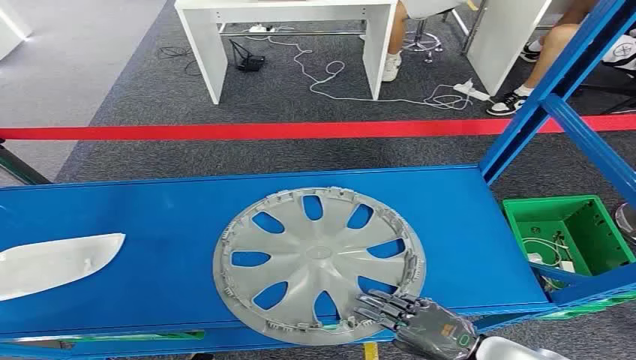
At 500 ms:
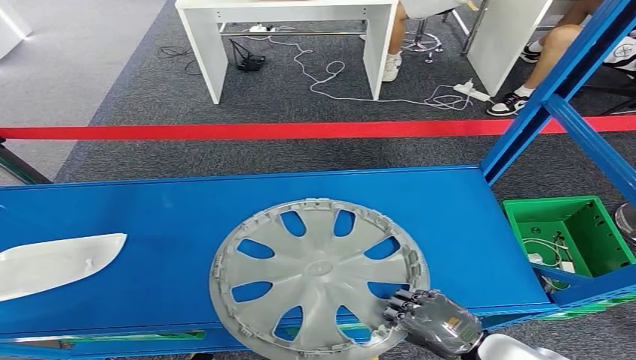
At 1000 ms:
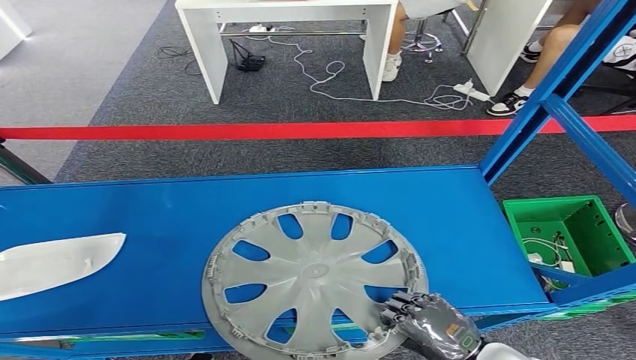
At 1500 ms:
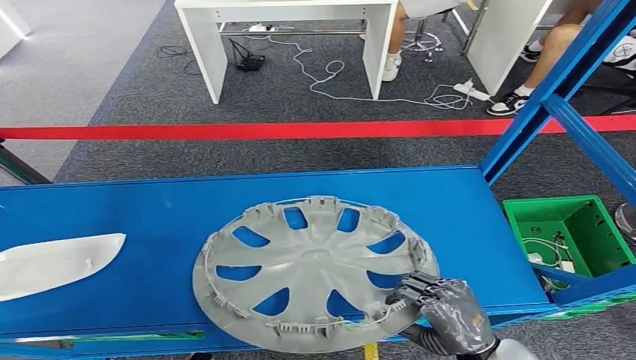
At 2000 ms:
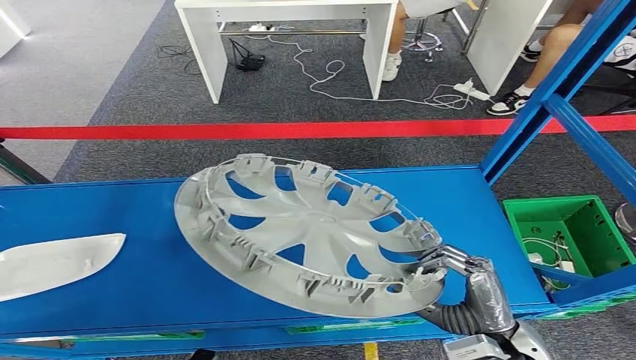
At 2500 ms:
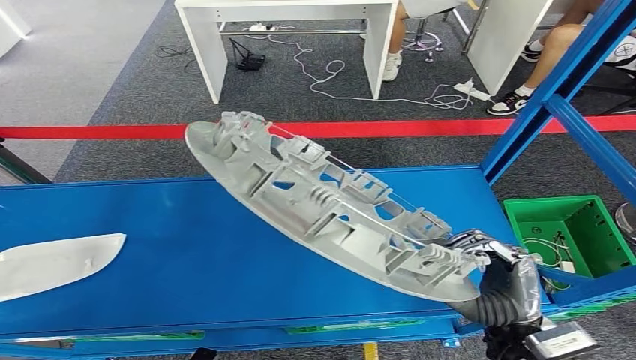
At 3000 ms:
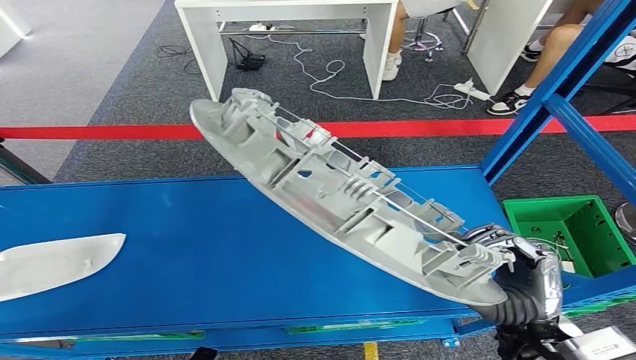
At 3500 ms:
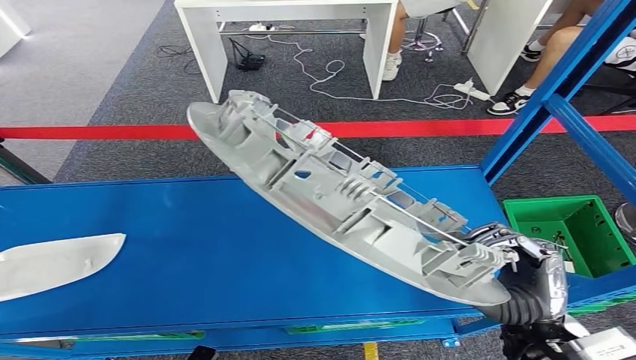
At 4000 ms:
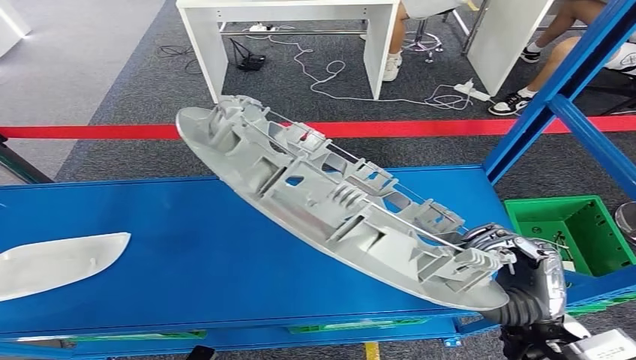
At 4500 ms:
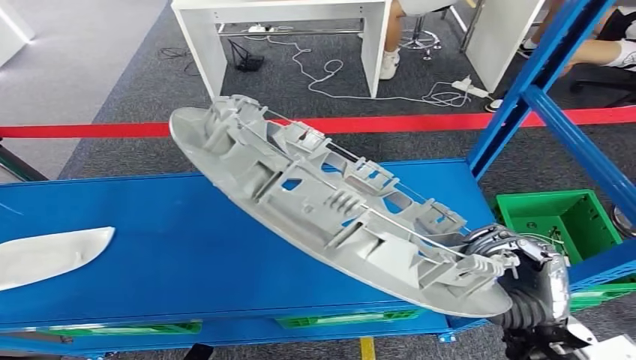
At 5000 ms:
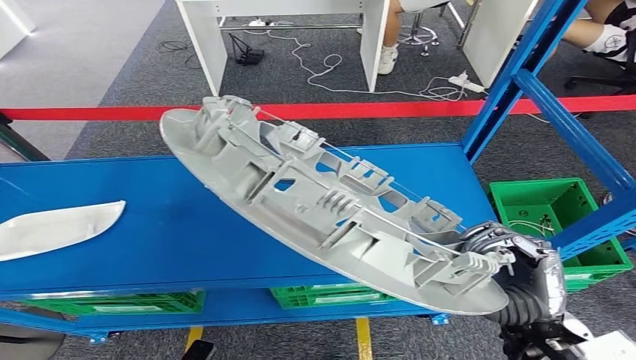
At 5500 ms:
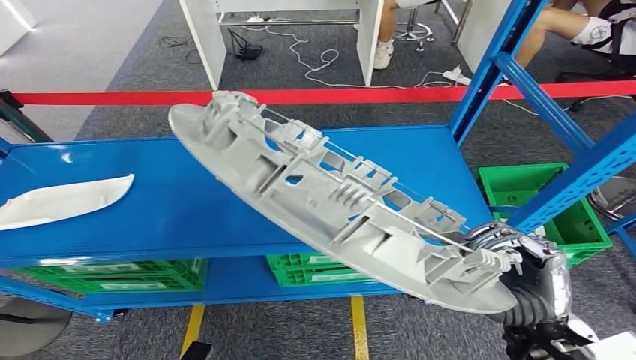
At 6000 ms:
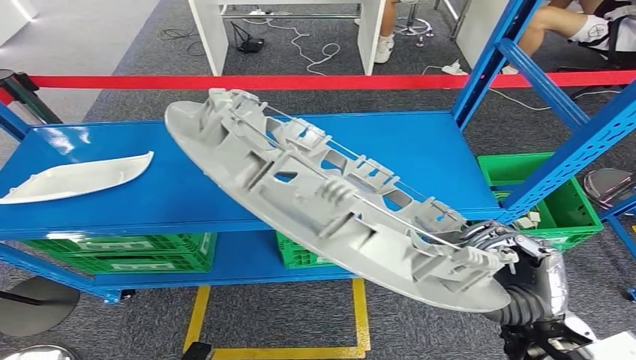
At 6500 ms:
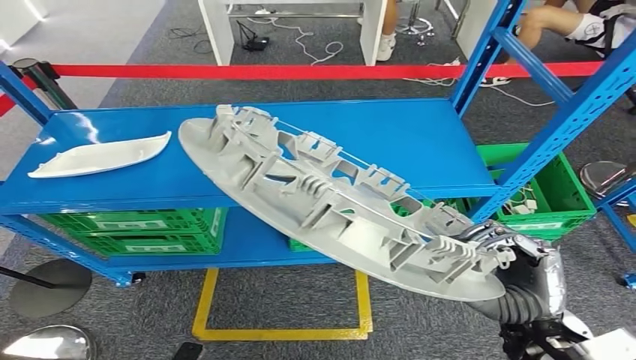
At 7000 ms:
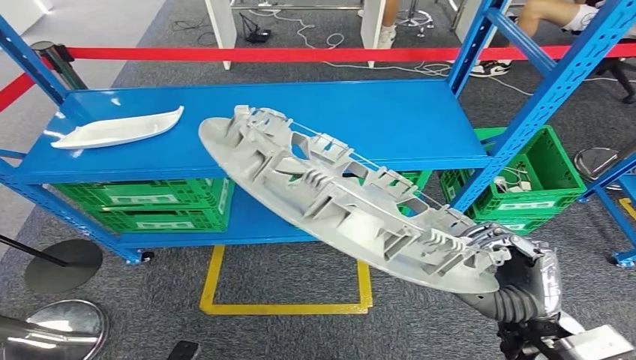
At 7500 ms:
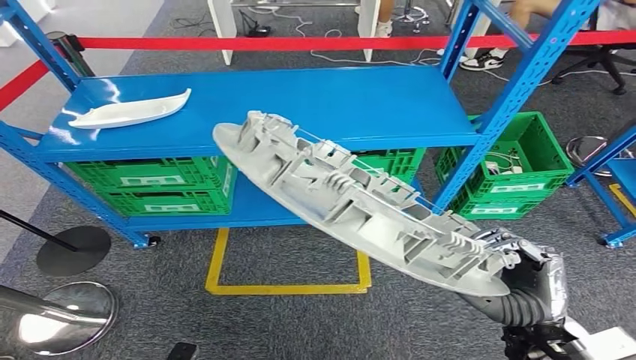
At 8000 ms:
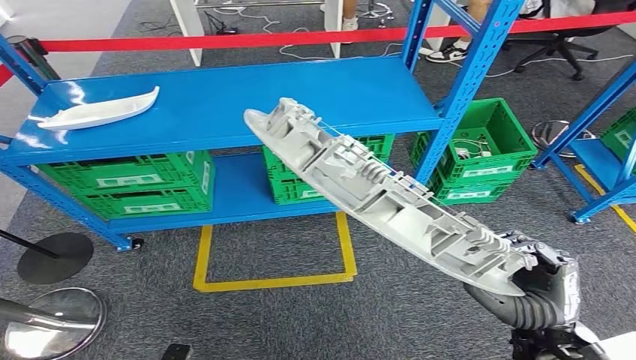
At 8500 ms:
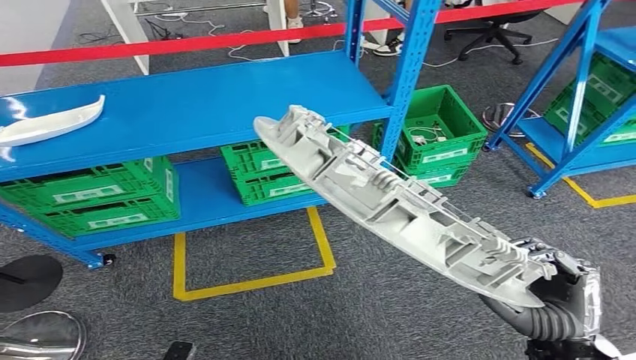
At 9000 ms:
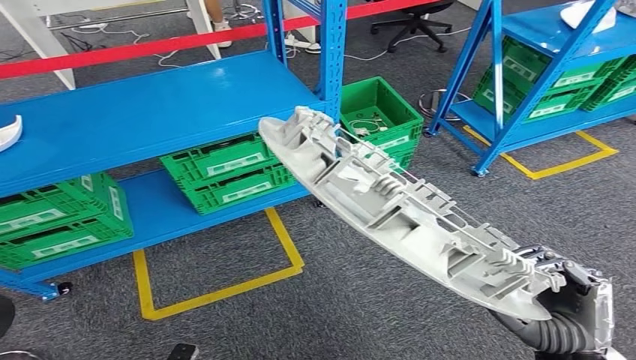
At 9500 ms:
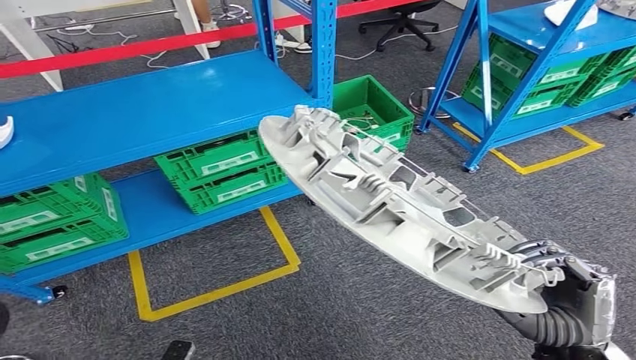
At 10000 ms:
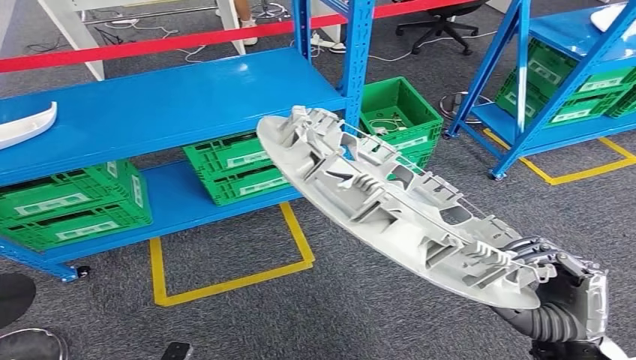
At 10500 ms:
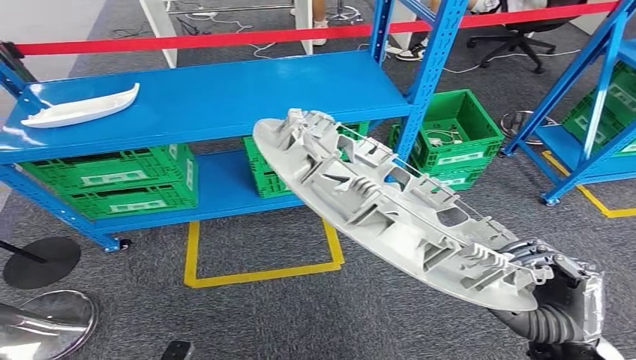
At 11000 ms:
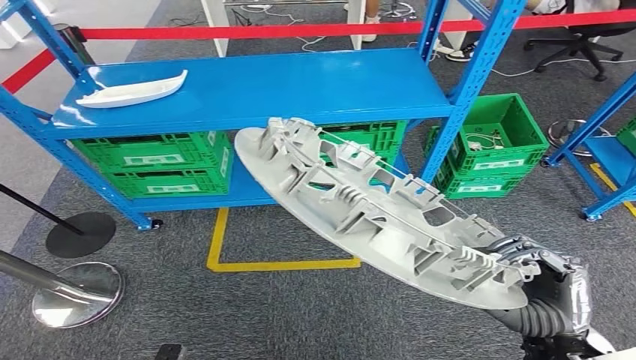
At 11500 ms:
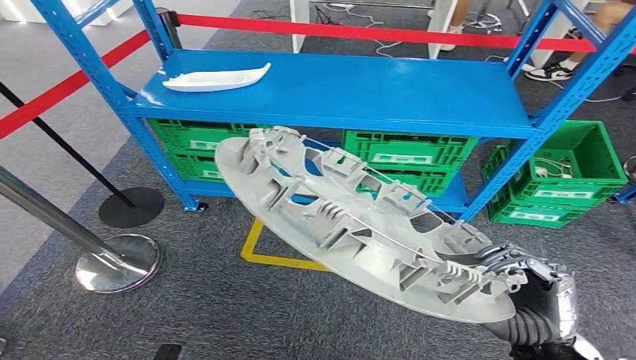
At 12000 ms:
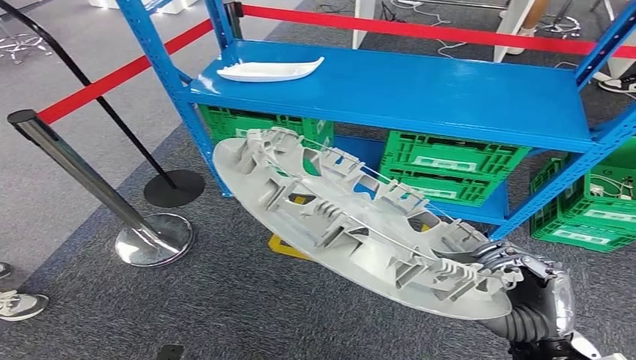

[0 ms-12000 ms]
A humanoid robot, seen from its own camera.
Step, 0 ms to 3500 ms: Pick up the small component from the shelf.

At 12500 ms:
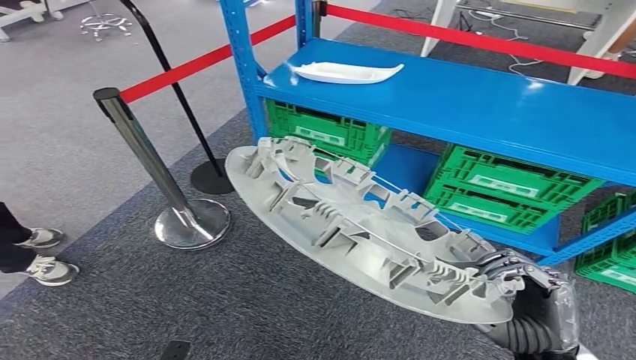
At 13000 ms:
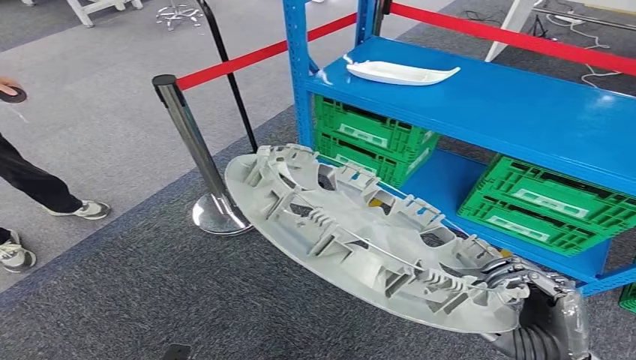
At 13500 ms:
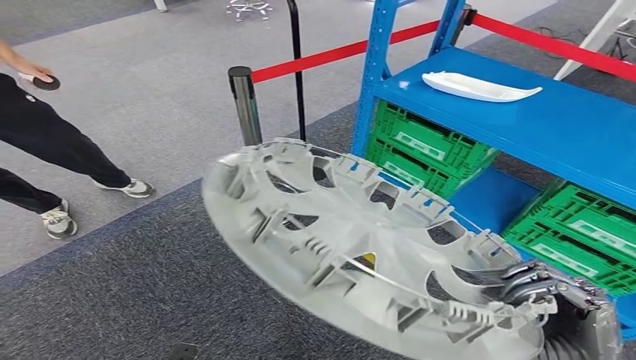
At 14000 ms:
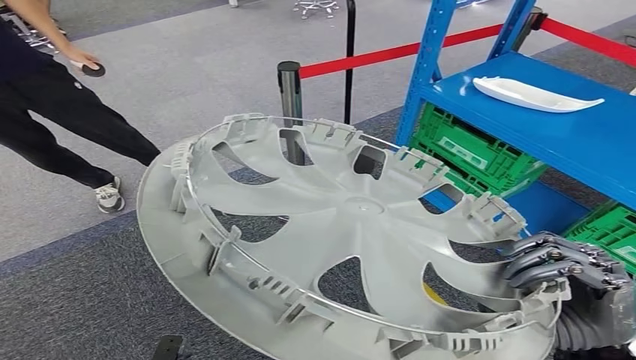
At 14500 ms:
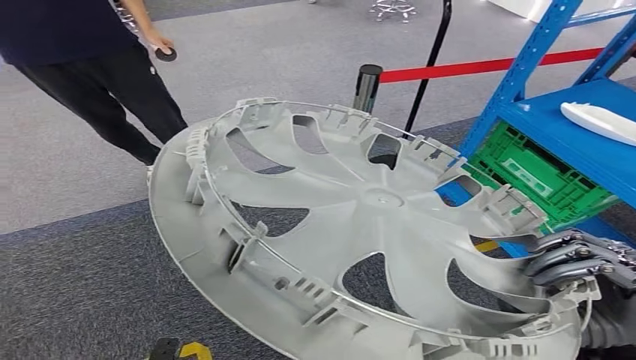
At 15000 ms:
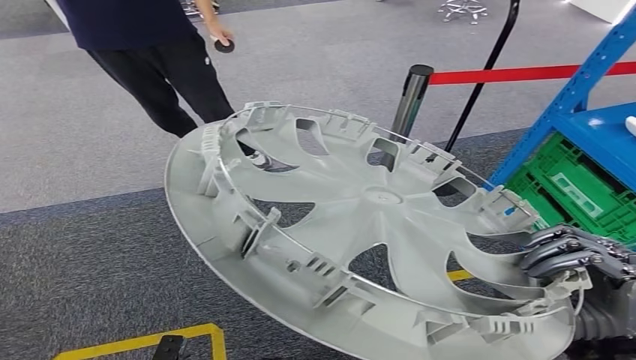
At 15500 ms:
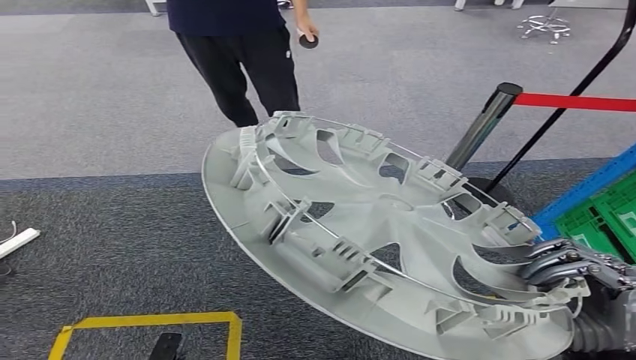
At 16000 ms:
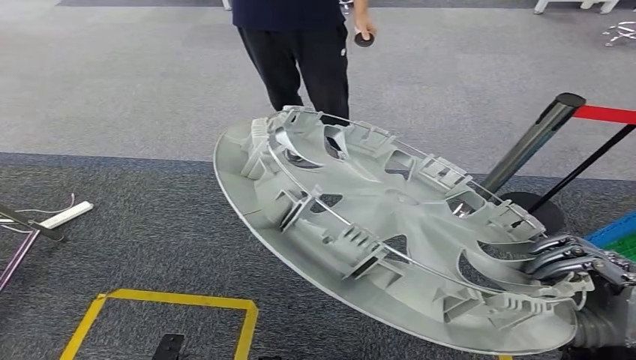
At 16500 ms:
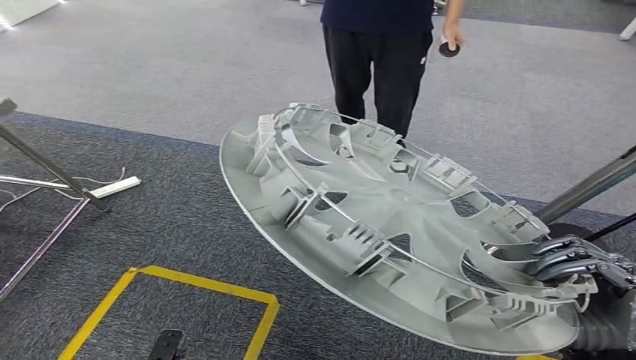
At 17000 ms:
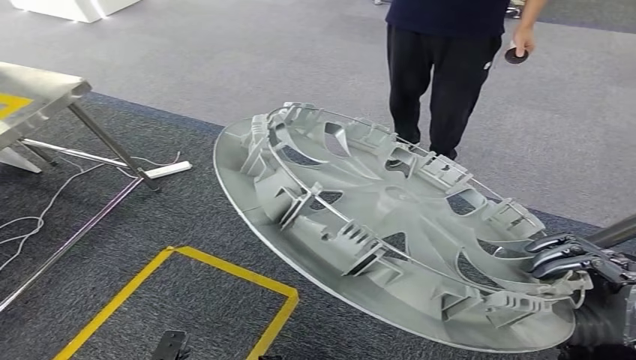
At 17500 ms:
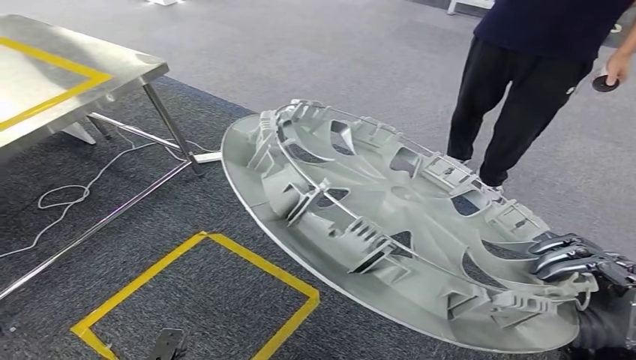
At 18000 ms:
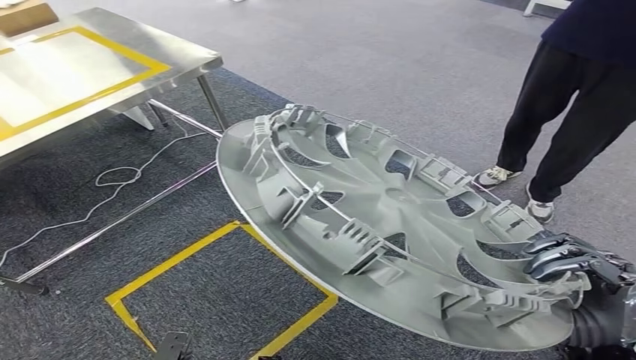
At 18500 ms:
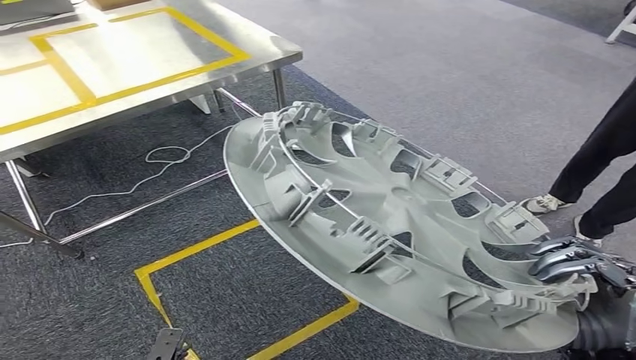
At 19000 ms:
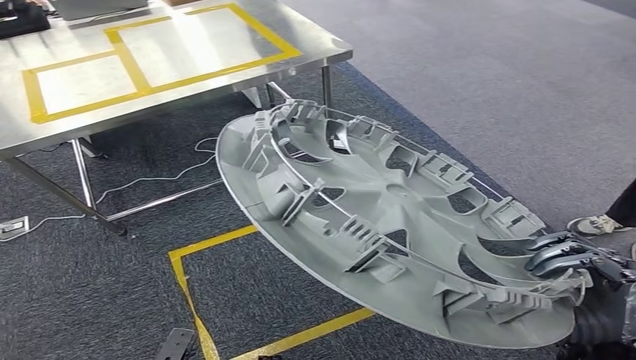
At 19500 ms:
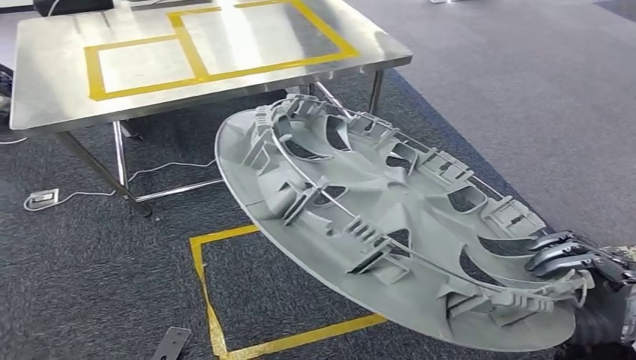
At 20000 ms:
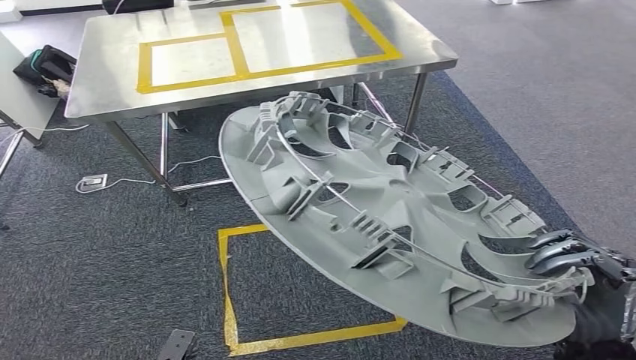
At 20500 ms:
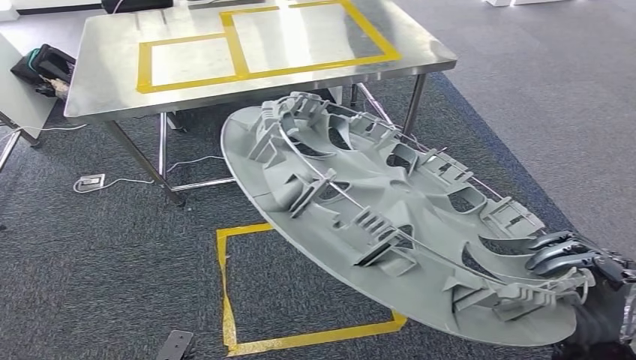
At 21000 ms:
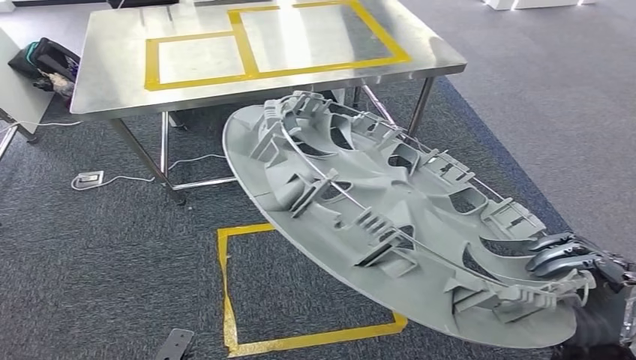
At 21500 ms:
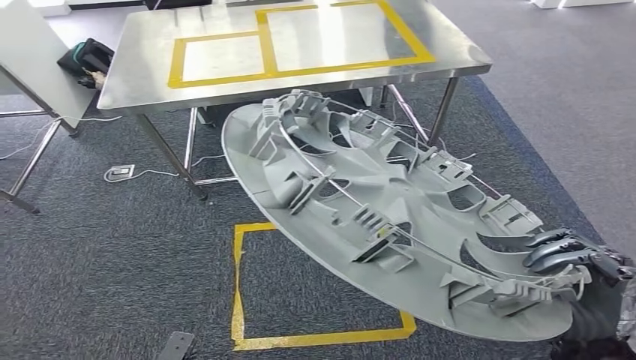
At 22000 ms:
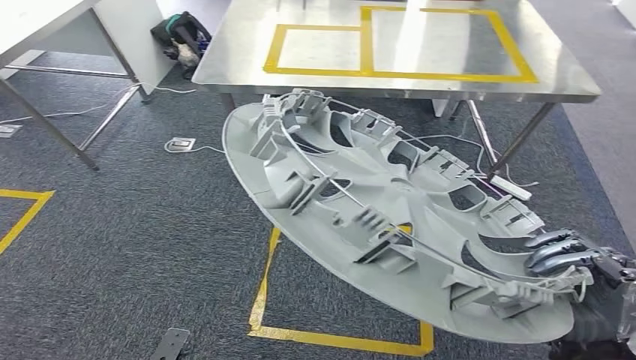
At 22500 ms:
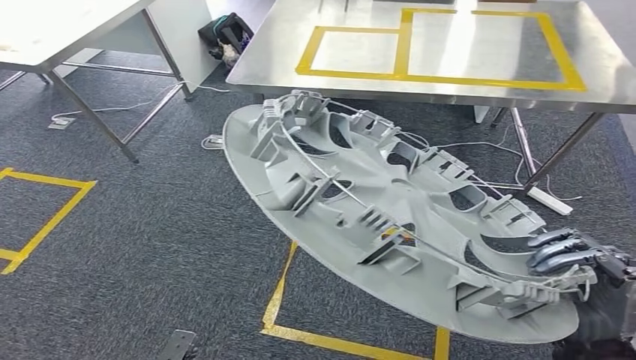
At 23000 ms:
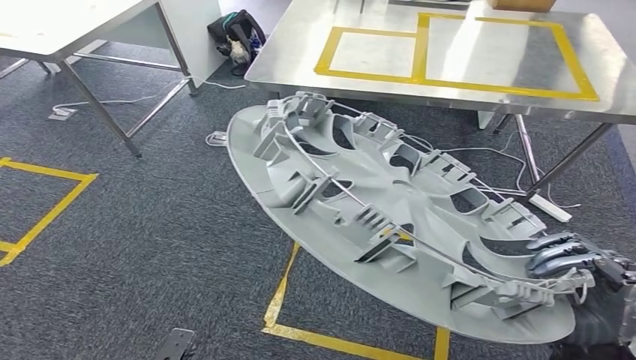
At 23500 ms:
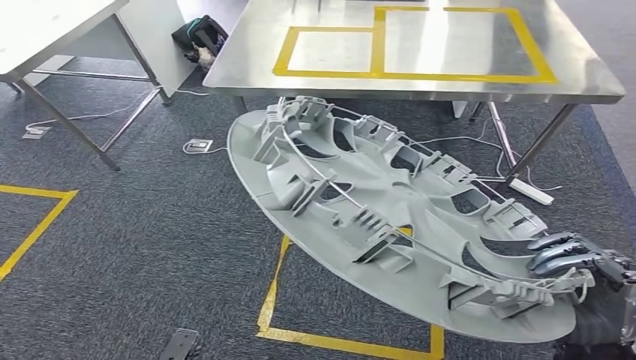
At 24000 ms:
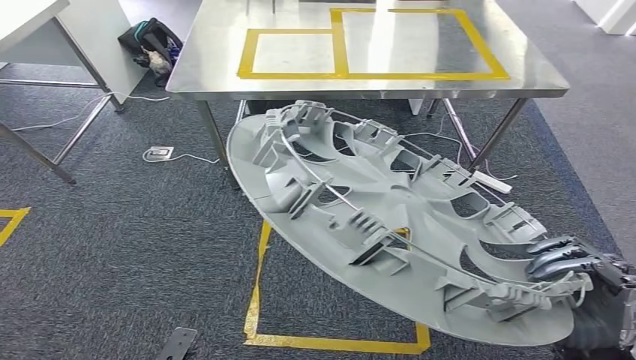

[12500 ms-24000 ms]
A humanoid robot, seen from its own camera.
Step, 12500 ms to 23500 ms: Move the small component to the workbench.
